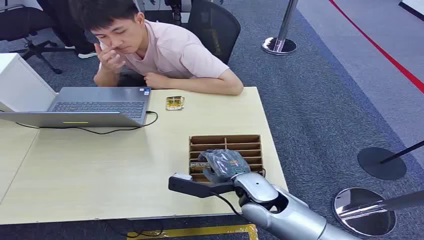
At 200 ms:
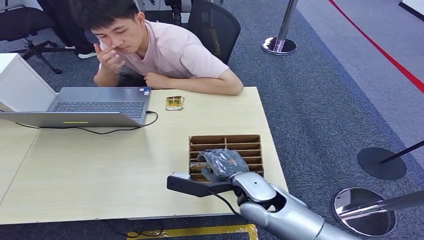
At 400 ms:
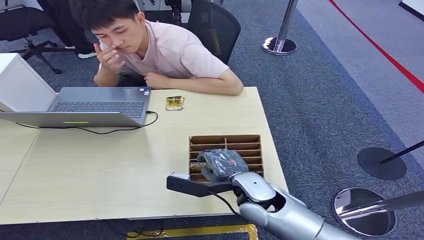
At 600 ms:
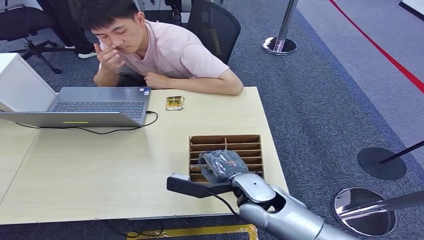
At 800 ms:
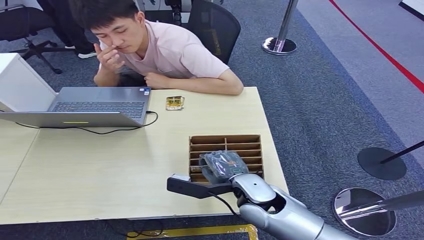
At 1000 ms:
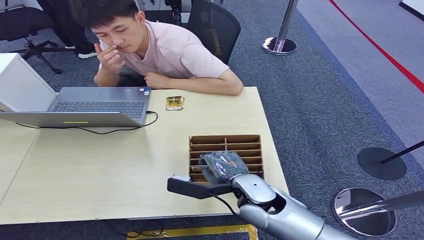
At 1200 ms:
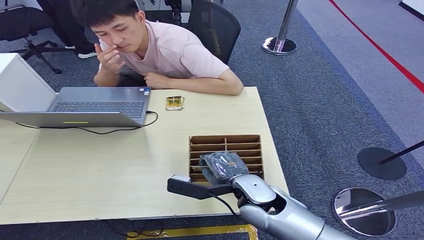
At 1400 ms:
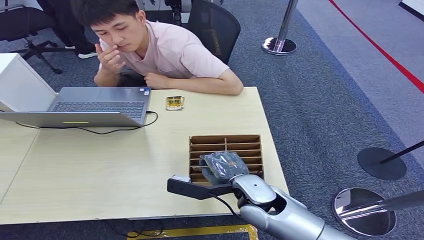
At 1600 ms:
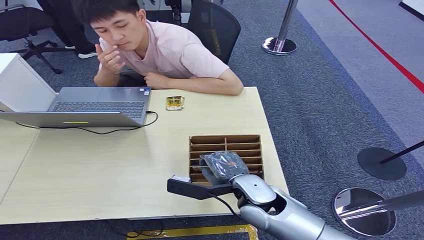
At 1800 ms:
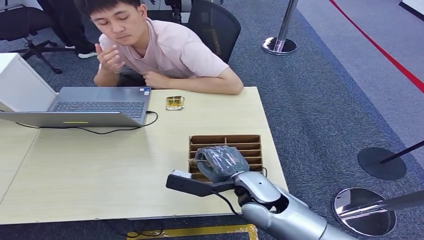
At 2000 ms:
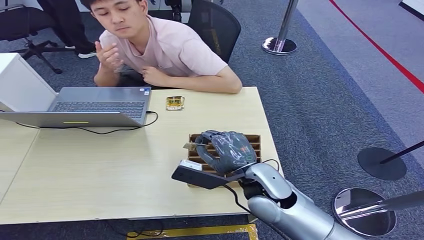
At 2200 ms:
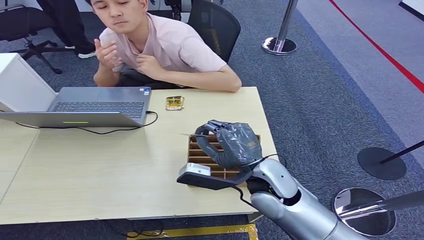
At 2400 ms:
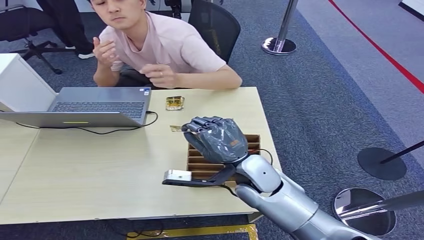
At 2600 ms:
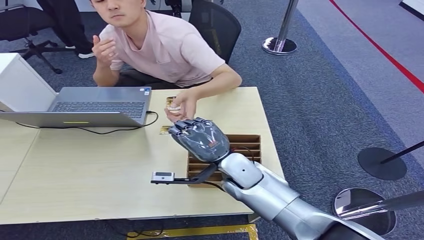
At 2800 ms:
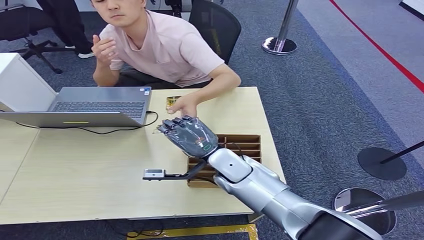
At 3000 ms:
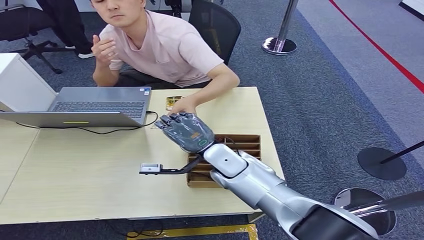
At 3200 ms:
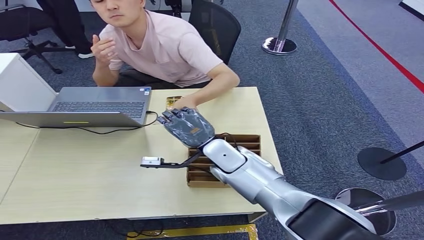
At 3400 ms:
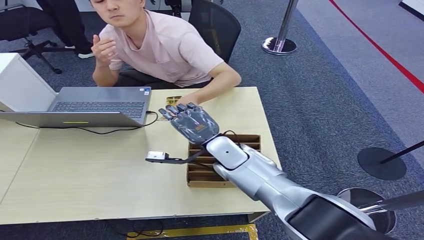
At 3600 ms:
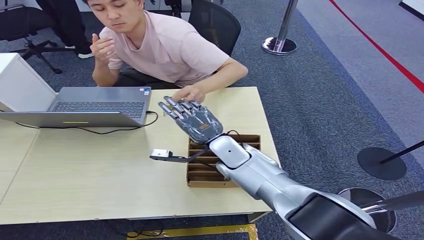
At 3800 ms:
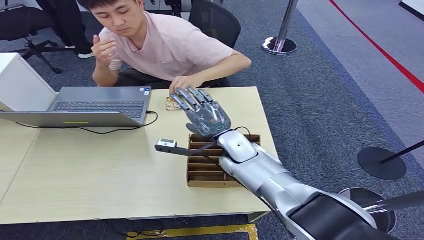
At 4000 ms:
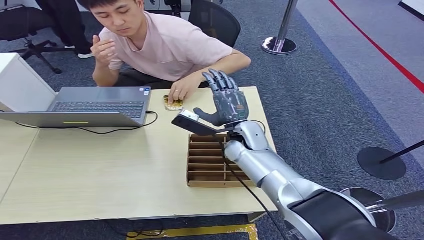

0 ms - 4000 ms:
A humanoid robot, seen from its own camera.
Step, 0 ms - 1800 ms: Pick up the key card from the card box.
Step, 2200 ms - 4000 ms: Hand the key card to the target.
1400 ms - 2600 ms: The right hand travels forward by about 5 cm.
2600 ms - 4000 ms: The right hand heads forward, covering approximately 10 cm.

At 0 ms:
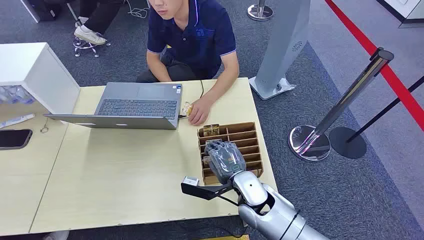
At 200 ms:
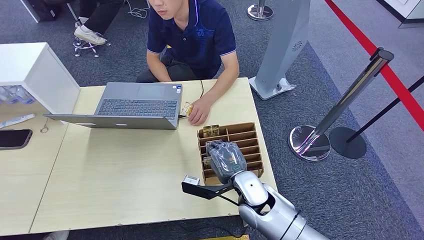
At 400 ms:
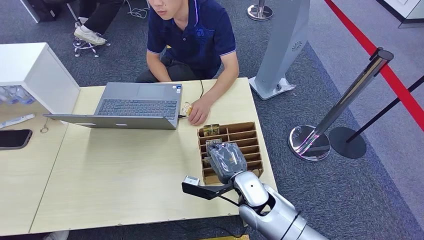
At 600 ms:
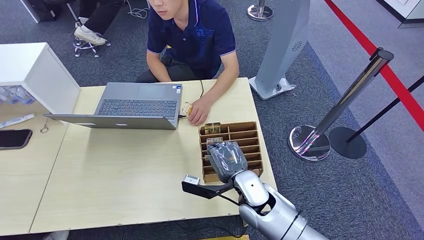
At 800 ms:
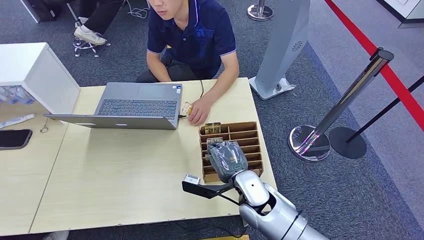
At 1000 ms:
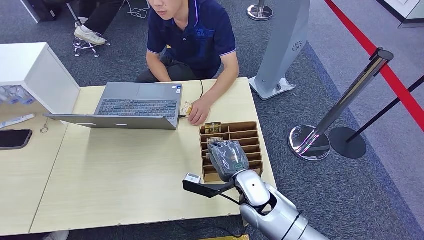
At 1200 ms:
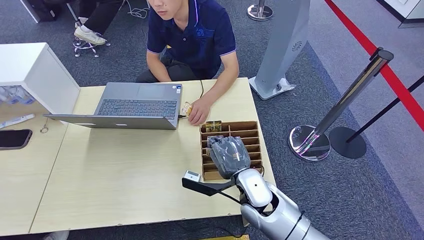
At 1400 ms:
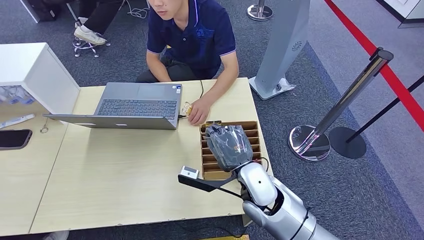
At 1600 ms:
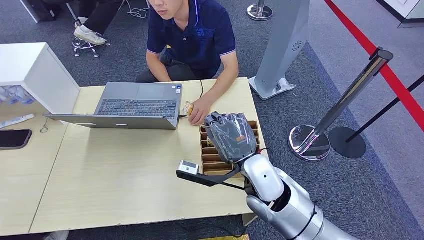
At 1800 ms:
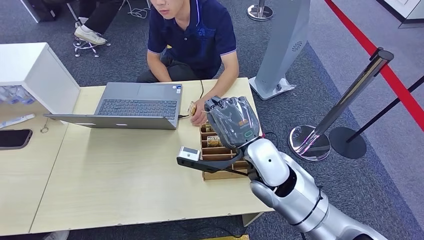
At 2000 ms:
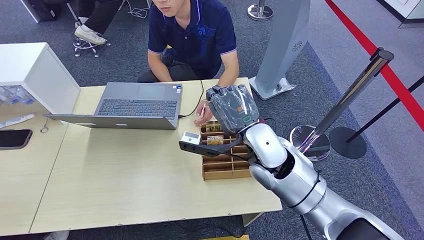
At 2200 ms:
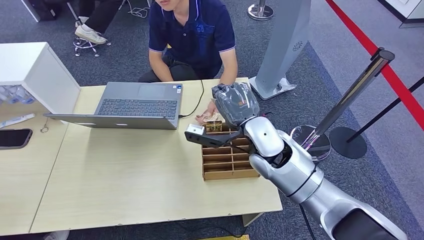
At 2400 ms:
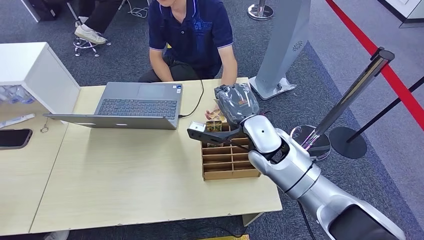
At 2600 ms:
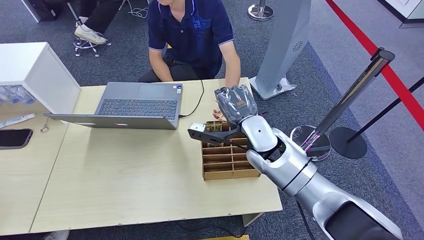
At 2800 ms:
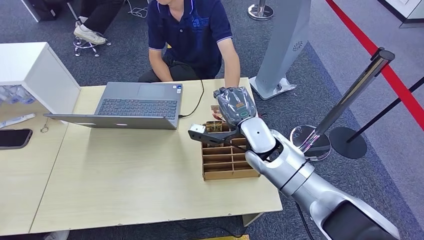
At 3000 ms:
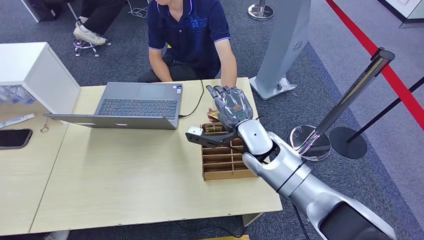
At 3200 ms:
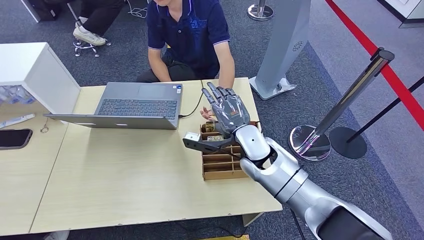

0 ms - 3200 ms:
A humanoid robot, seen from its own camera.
Step, 0 ms - 1400 ms: Pick up the key card from the card box.
Step, 2800 ms - 3200 ms: Hand the key card to the target.
1600 ms - 3200 ms: The right hand moves forward, about 10 cm.
